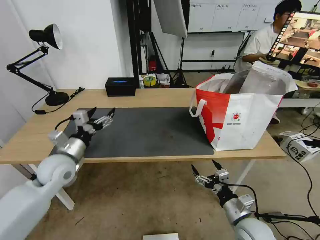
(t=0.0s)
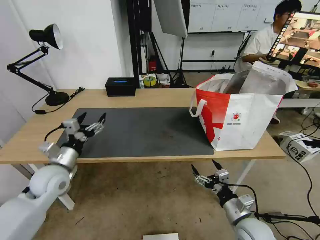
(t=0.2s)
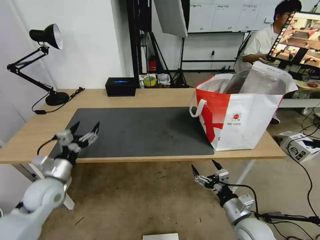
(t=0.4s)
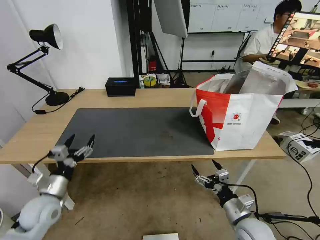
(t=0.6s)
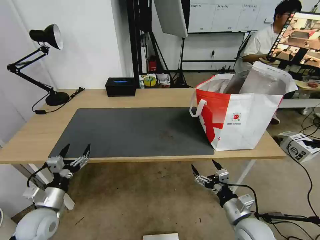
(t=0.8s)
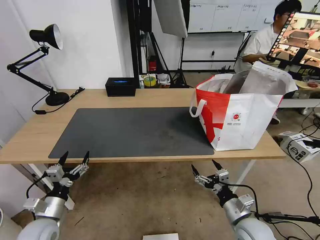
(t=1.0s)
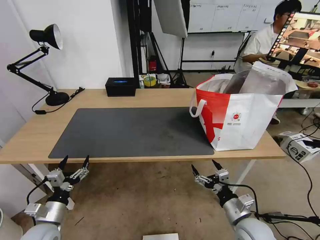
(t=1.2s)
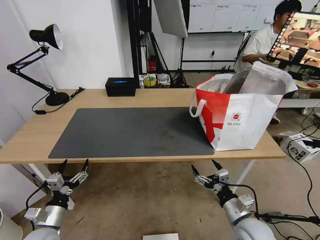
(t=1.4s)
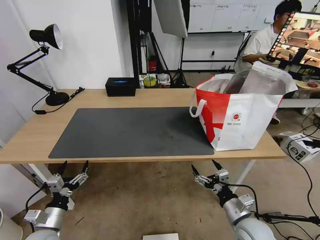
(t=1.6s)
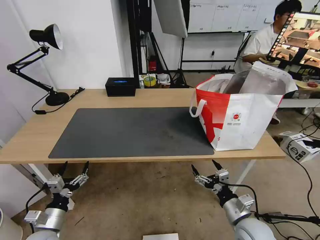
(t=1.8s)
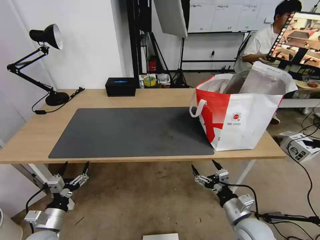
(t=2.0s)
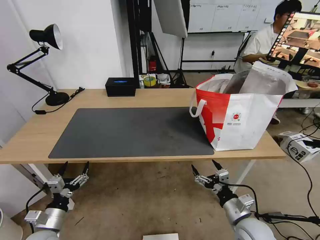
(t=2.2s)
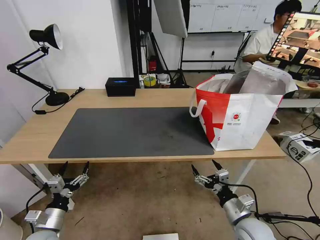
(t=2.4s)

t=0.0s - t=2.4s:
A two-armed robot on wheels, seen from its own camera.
Task of the whole recording: Pick up the trash from the table and place it into the takeout bag.
t=0.0s - t=1.2s: The left gripper heads downward and backward, covering approximately 20 cm.
t=1.2s - t=2.4s: The grippers stay close to where they were, moving slightly.
